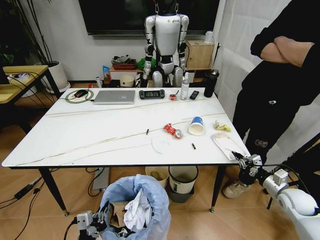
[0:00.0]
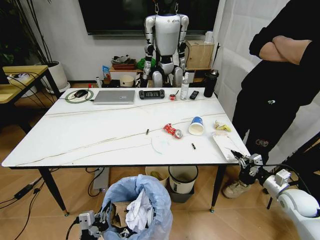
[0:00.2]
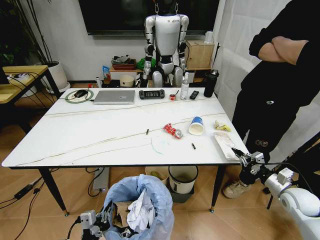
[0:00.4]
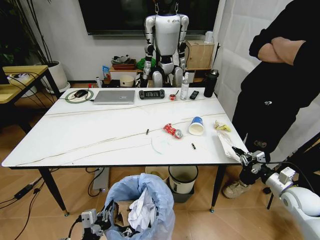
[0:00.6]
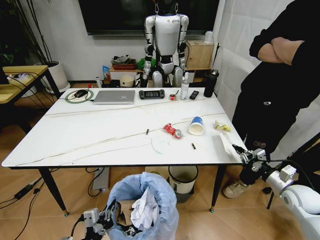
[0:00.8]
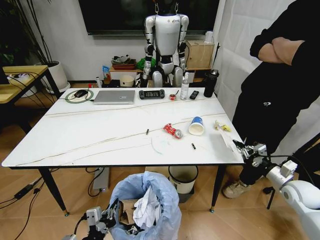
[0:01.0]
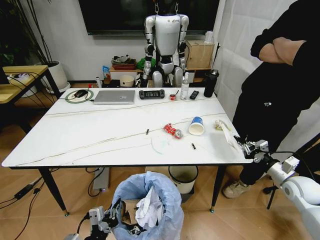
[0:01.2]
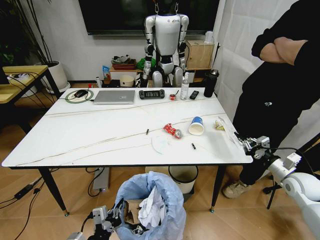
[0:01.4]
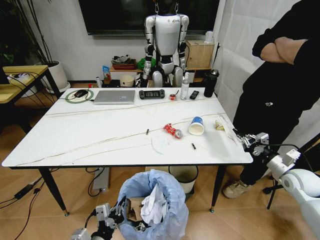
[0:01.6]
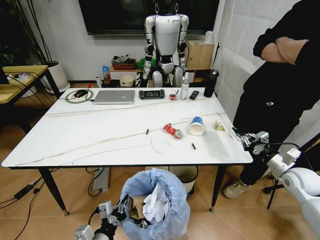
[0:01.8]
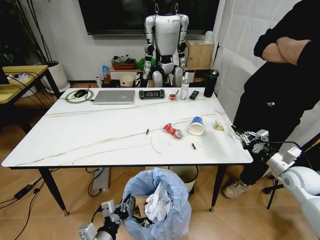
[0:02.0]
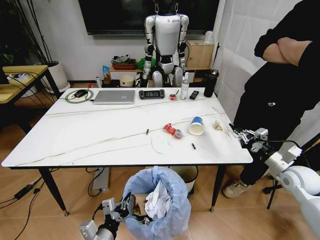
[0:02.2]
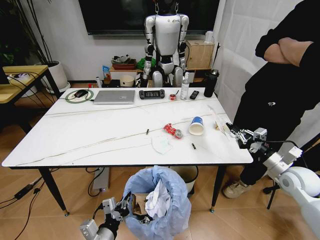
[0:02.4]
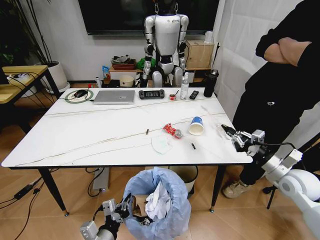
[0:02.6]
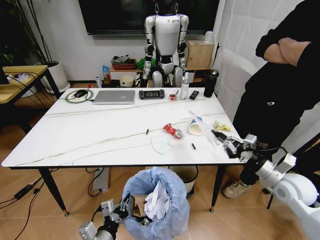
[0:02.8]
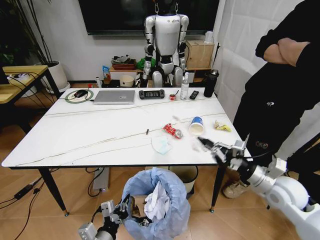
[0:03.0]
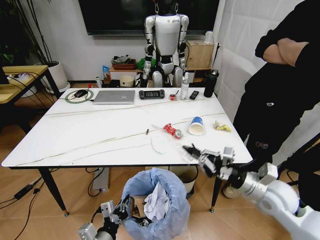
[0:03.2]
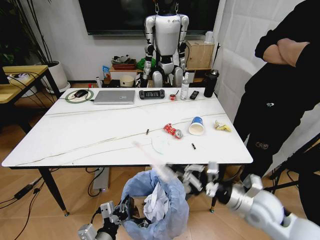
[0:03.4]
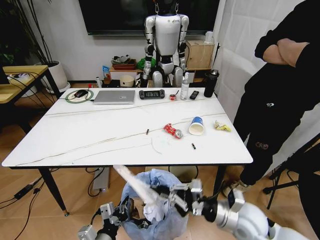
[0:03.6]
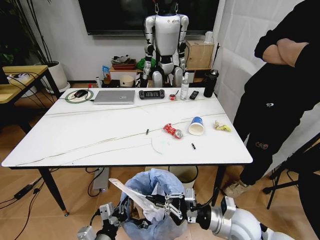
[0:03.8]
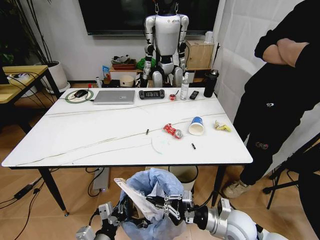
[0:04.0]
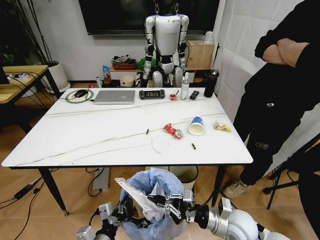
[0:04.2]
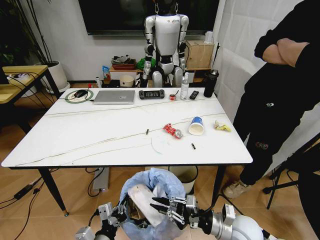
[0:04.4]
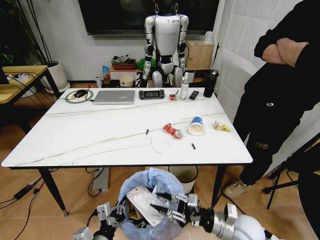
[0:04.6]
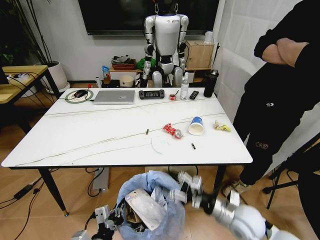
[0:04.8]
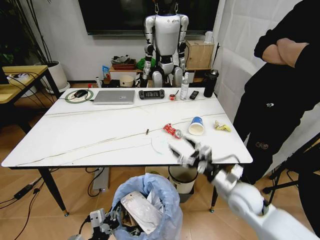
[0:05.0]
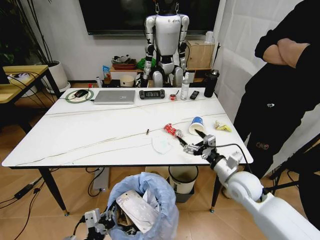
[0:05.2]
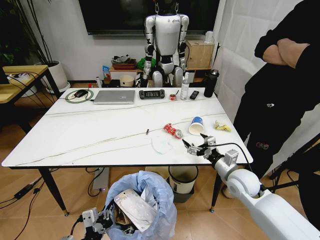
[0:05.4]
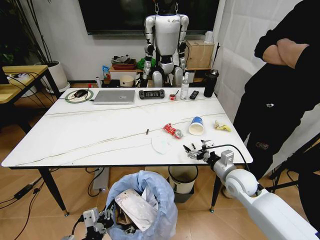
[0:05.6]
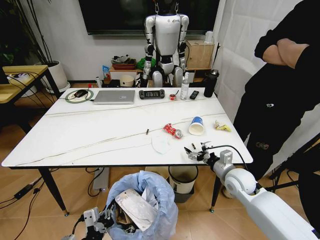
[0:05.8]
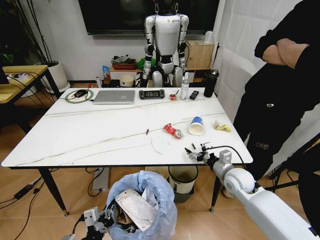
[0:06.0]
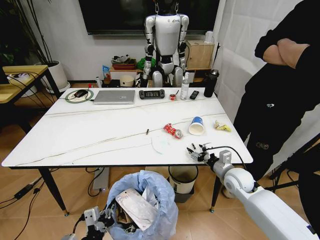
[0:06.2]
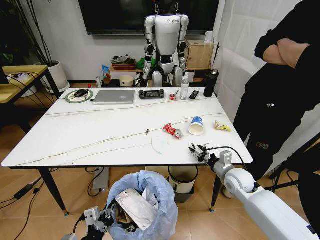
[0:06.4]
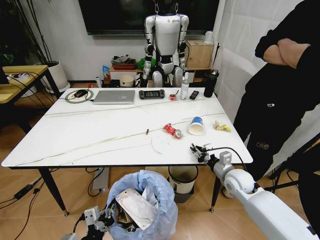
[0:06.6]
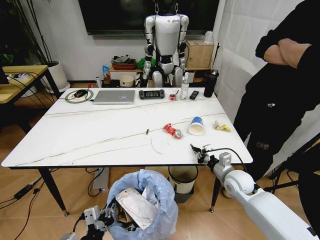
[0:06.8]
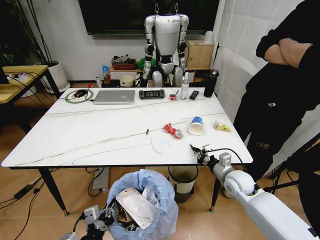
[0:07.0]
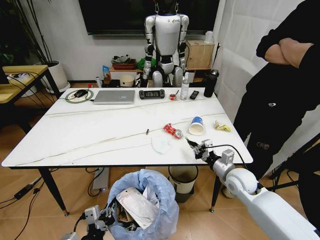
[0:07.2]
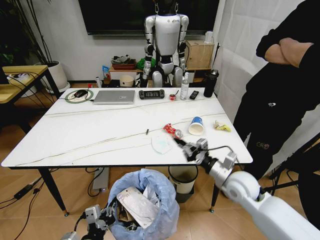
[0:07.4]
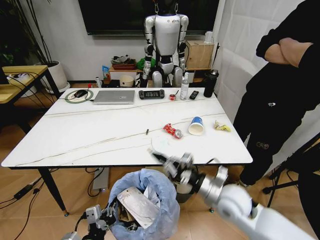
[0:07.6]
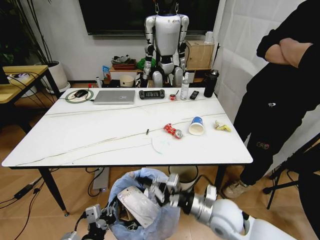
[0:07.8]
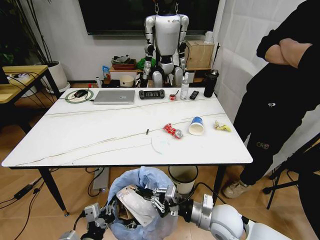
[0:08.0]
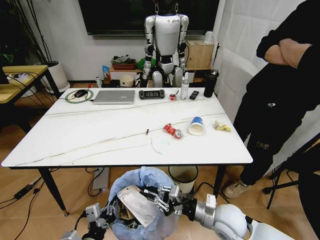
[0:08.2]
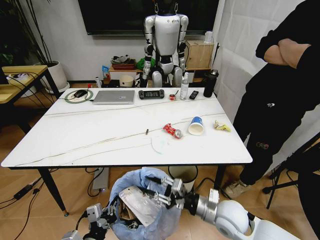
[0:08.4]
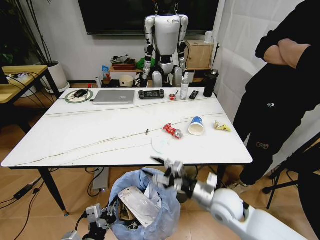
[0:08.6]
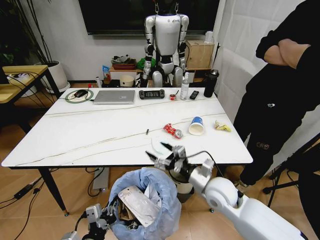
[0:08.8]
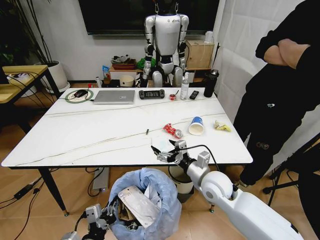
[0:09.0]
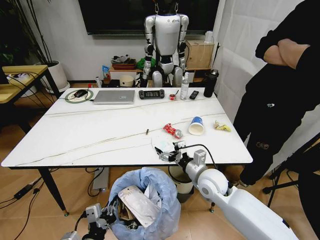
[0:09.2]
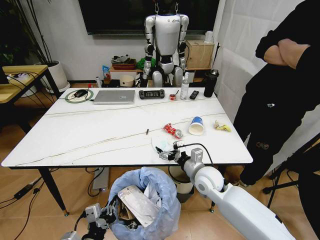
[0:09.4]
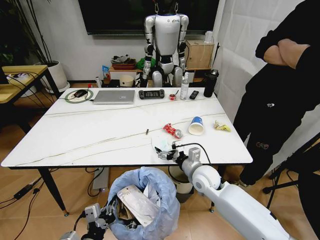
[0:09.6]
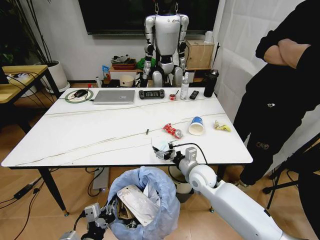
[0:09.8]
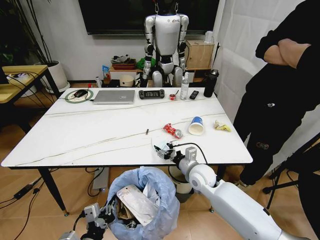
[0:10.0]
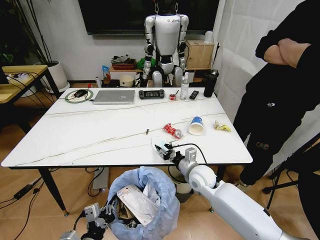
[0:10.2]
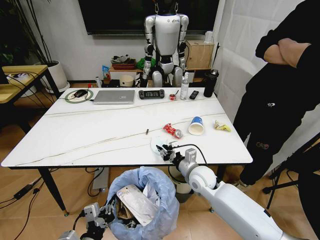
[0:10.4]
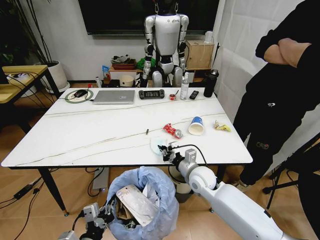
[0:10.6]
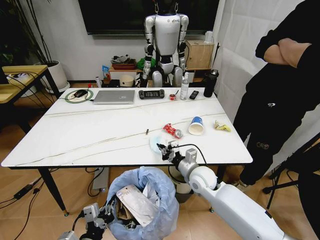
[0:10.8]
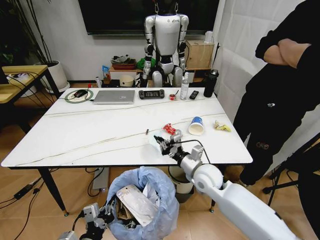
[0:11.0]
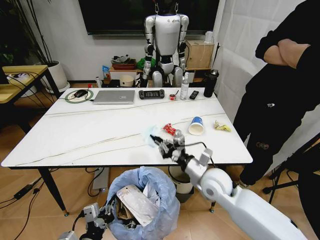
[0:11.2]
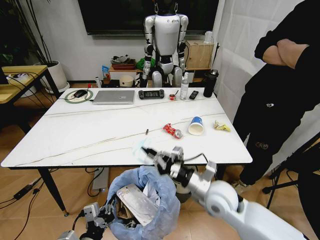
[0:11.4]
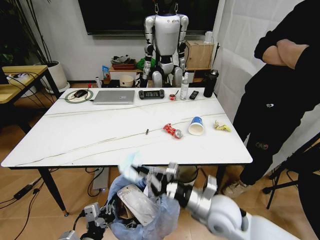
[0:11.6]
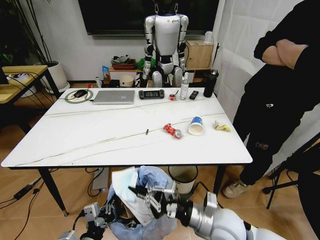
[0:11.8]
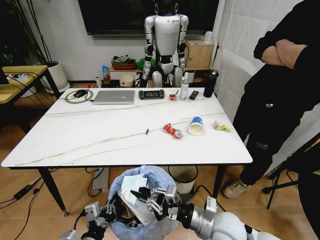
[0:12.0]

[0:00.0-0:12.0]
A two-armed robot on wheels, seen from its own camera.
Task of the whole recording: Pick up the trash bin and place the trash from the table into it.
0:00.0 to 0:01.6: The right gripper heads upward, covering about 5 cm; the left gripper ends up about 5 cm from where it was.
0:01.6 to 0:03.0: The right gripper goes some 15 cm to the left and backward.
0:03.0 to 0:04.4: The right gripper is displaced to the left, downward and backward by approximately 15 cm.
0:04.4 to 0:06.0: The right gripper goes some 15 cm forward, and opens.
0:06.0 to 0:07.6: The right gripper heads backward, to the left and upward, covering about 15 cm, and closes.
0:07.6 to 0:09.0: The right gripper is displaced forward by approximately 5 cm, and opens up.
0:09.0 to 0:10.4: The right gripper shifts by about 5 cm, and closes up.
0:10.4 to 0:12.0: The right gripper shifts roughly 15 cm backward.

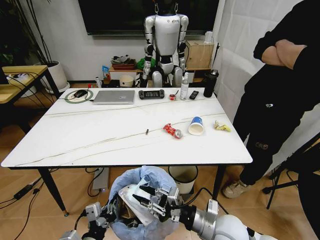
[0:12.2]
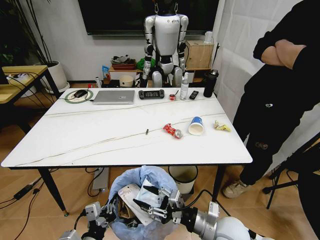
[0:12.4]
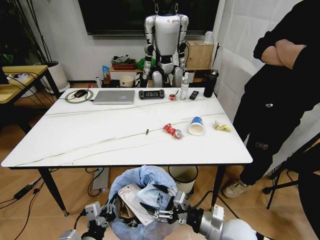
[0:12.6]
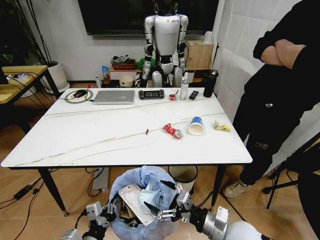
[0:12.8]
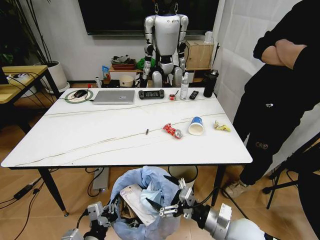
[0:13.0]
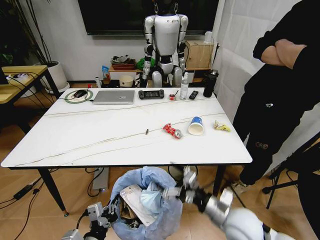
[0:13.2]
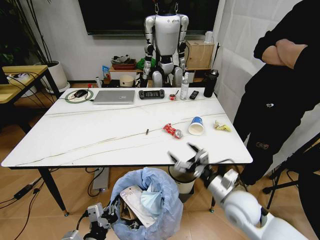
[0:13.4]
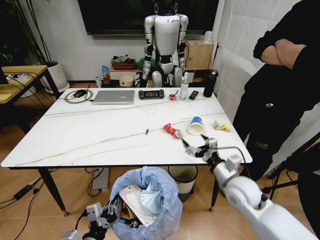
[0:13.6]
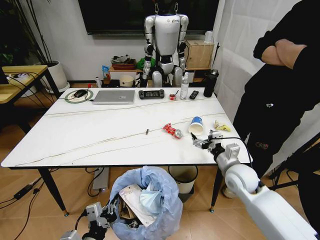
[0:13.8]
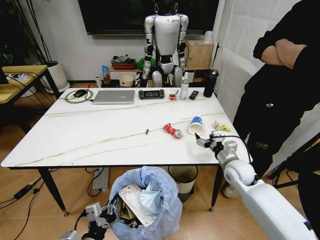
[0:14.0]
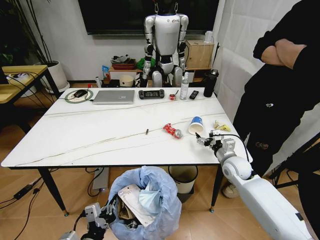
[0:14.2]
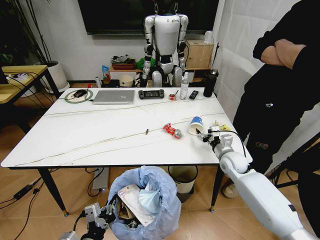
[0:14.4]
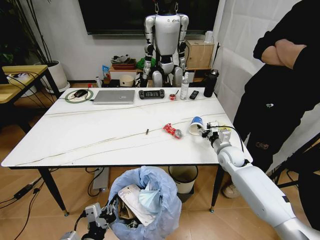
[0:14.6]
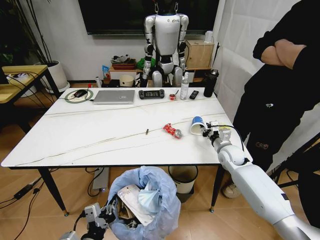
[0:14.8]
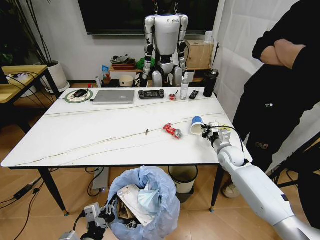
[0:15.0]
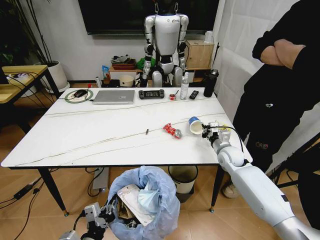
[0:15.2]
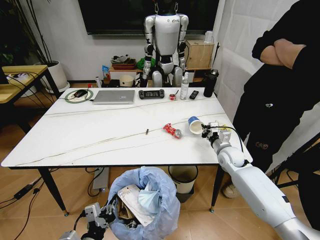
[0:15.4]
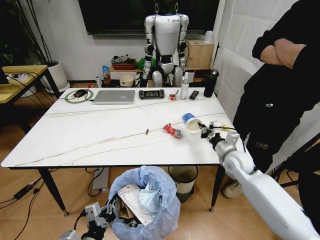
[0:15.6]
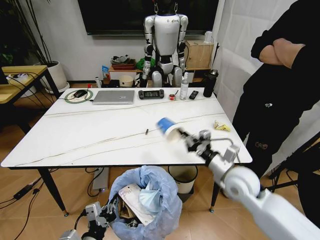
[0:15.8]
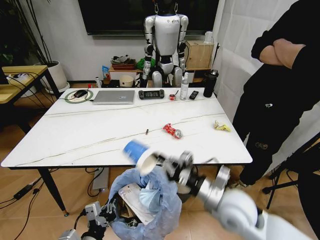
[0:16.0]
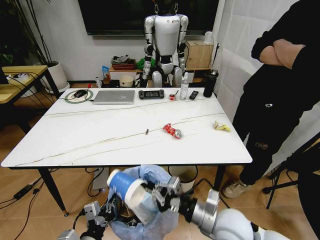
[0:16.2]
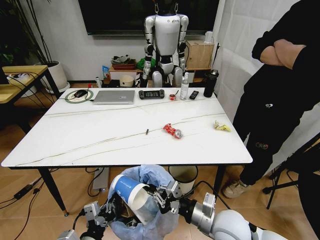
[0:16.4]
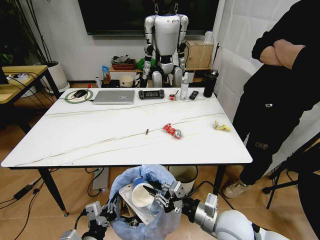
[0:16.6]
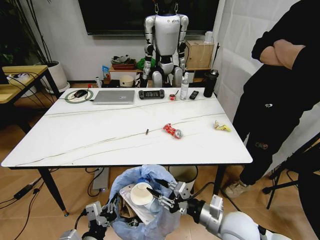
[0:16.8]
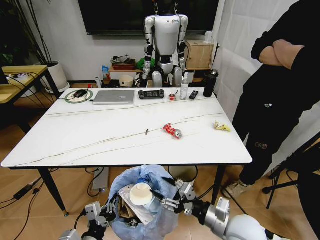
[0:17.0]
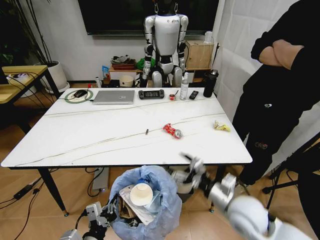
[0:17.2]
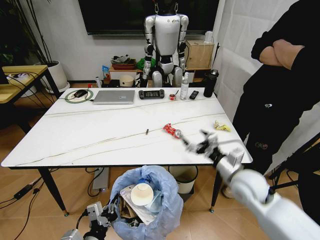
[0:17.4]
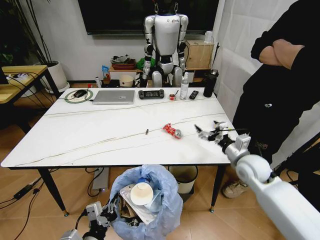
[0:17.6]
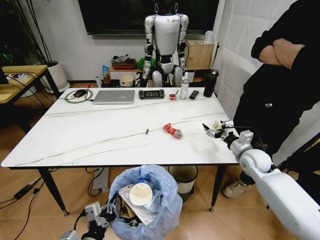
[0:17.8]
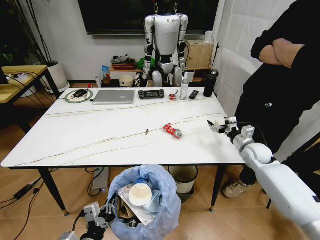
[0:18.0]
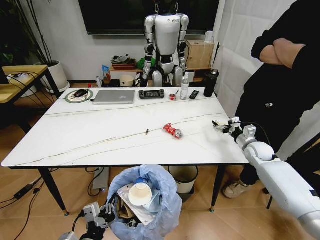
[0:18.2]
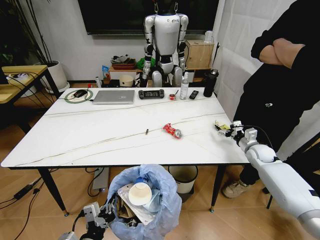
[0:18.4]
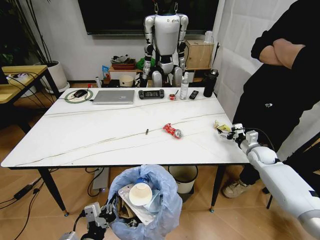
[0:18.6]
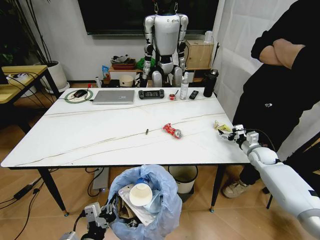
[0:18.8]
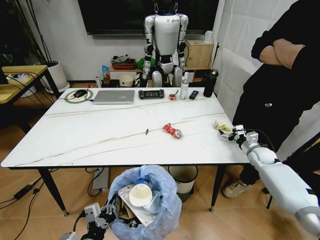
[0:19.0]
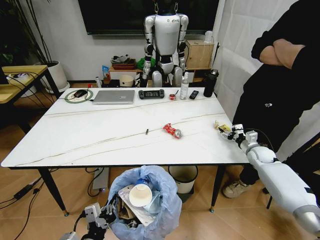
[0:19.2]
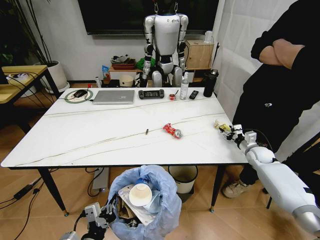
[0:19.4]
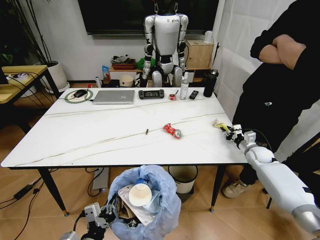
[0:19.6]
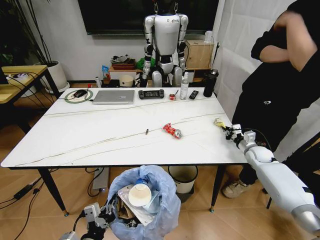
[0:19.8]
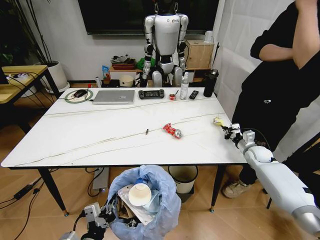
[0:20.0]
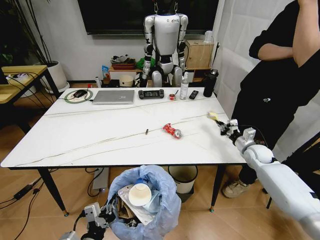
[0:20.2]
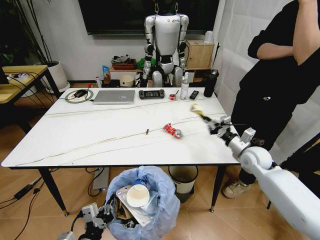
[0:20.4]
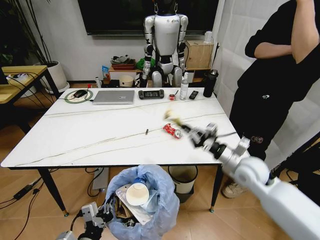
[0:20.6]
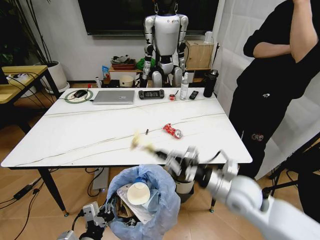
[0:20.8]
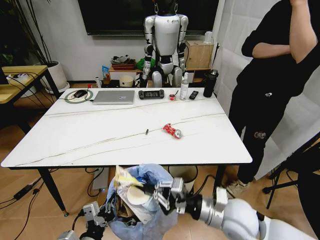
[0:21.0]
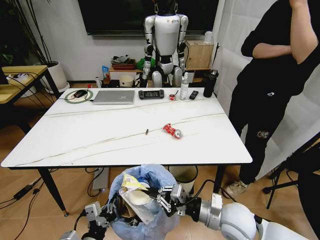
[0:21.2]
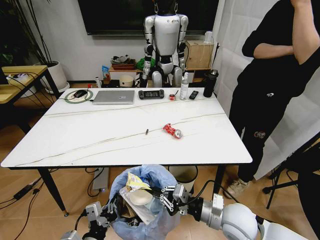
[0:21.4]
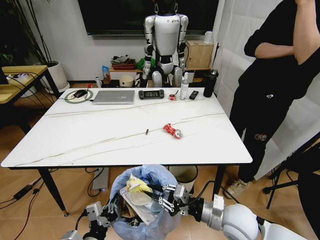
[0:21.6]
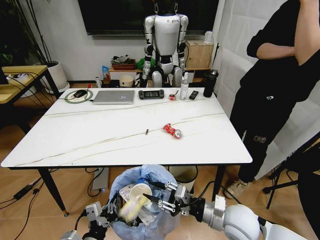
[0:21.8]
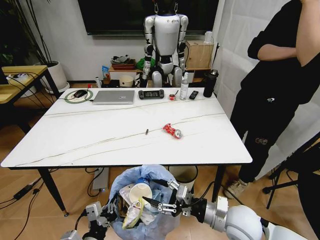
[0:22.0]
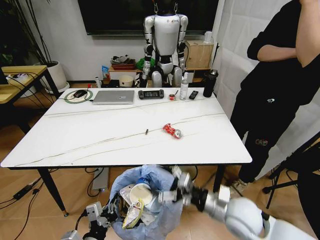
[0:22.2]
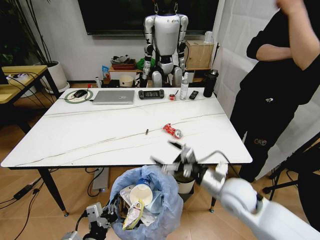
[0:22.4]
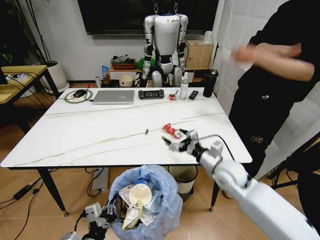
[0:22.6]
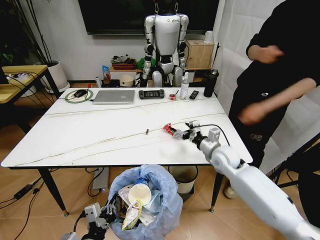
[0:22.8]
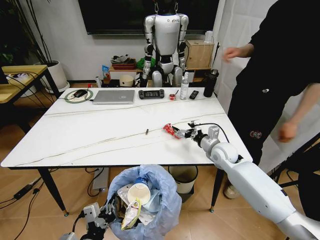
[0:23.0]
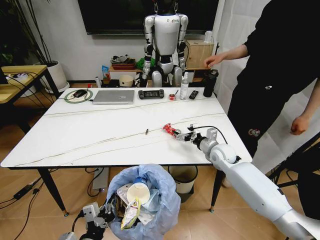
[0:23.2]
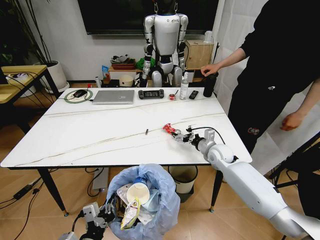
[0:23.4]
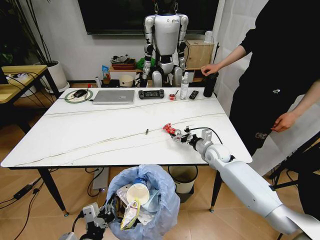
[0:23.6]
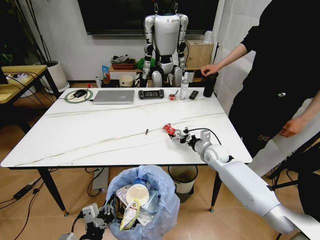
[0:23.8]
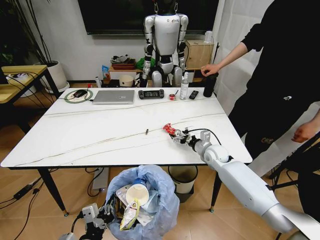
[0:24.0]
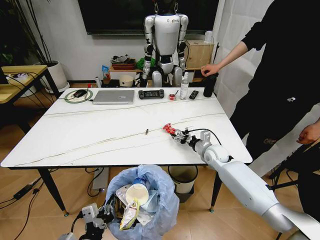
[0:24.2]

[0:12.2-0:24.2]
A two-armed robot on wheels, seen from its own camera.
Task of the whole recording: Pick up the trash bin and place the trash from the table into it.
0:12.2 to 0:13.8: The right gripper moves forward and to the right, approximately 15 cm, and opens.
0:13.8 to 0:15.2: The right gripper shifts some 10 cm forward, and closes.
0:15.2 to 0:16.6: The right gripper moves backward, about 25 cm.
0:16.6 to 0:18.2: The right gripper travels forward and to the right by some 35 cm, and opens up.
0:18.2 to 0:19.8: The right gripper closes.
0:19.8 to 0:21.2: The right gripper is displaced backward and to the left by some 35 cm.
0:21.2 to 0:22.6: The right gripper shifts about 10 cm forward, and opens its fingers.
0:22.6 to 0:24.2: The right gripper is displaced forward and downward by approximately 15 cm.
